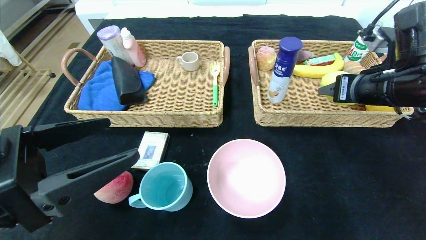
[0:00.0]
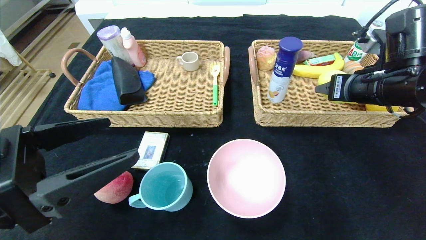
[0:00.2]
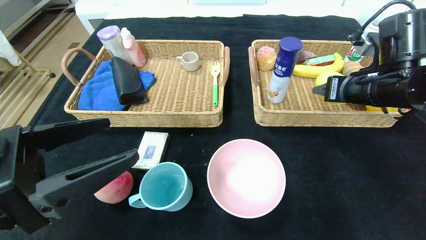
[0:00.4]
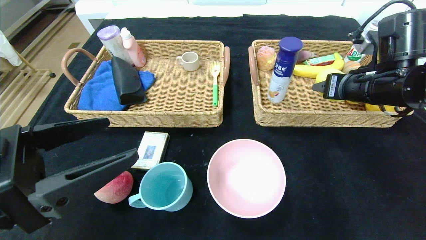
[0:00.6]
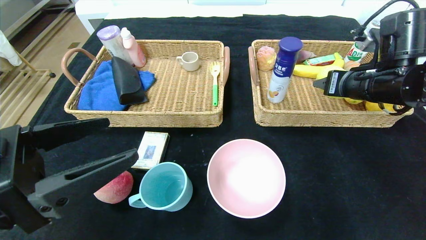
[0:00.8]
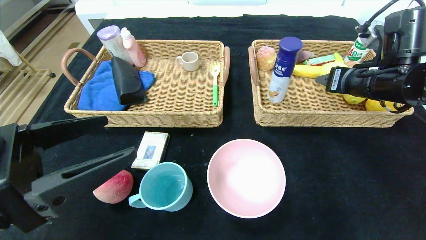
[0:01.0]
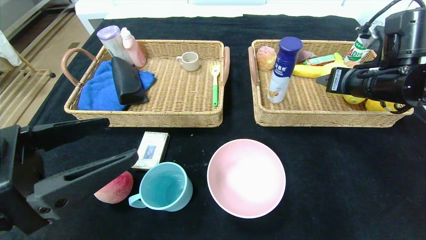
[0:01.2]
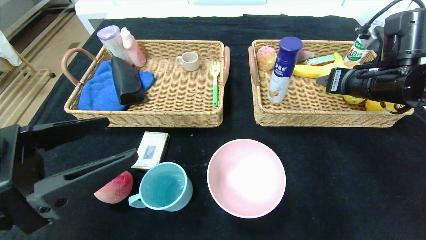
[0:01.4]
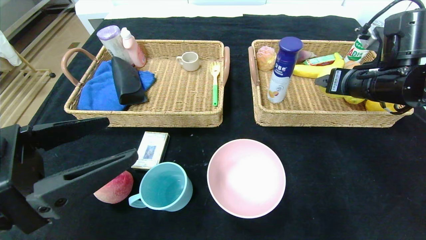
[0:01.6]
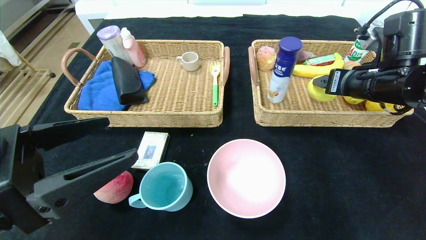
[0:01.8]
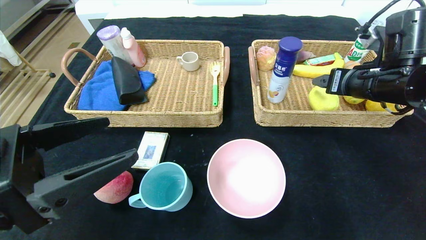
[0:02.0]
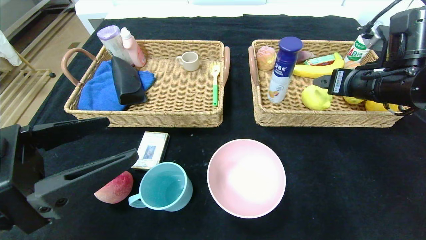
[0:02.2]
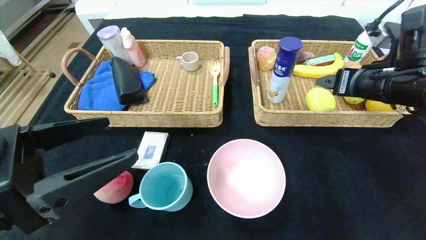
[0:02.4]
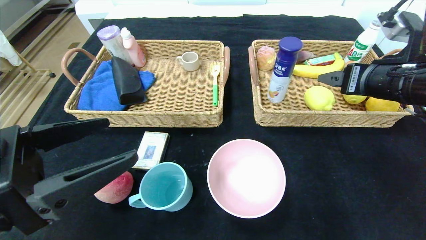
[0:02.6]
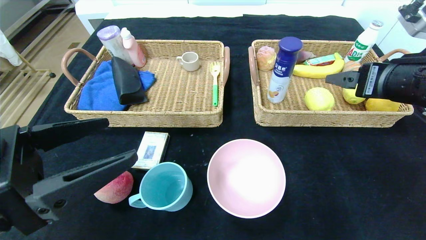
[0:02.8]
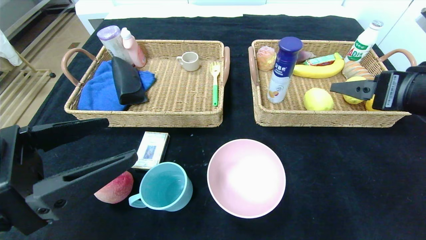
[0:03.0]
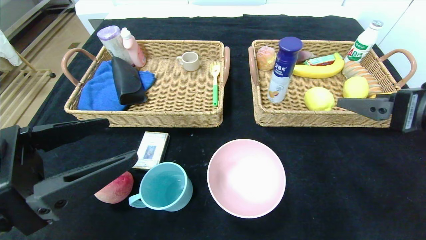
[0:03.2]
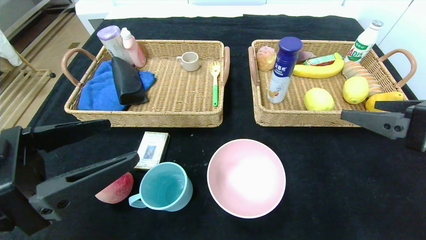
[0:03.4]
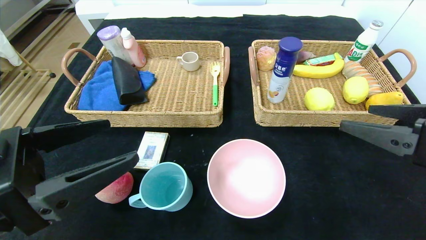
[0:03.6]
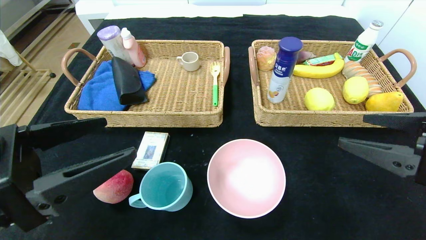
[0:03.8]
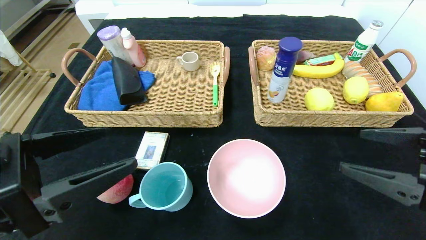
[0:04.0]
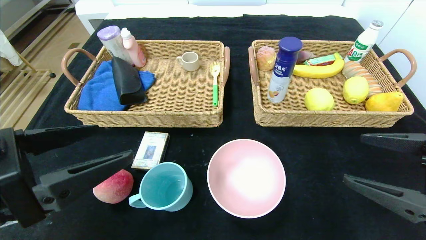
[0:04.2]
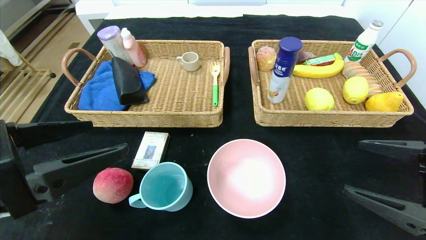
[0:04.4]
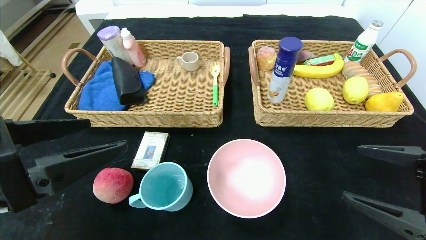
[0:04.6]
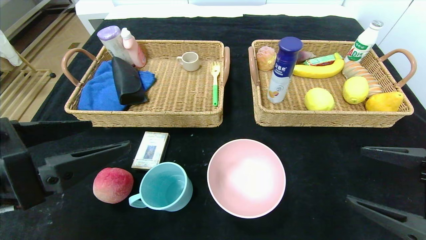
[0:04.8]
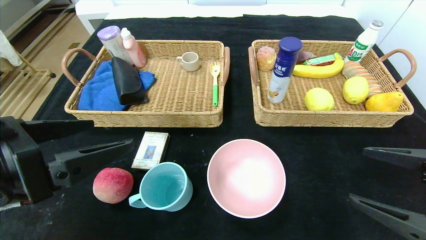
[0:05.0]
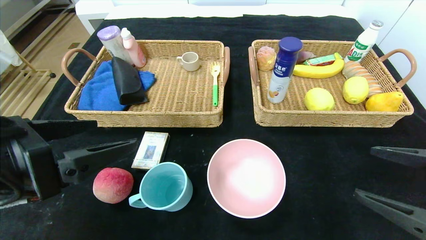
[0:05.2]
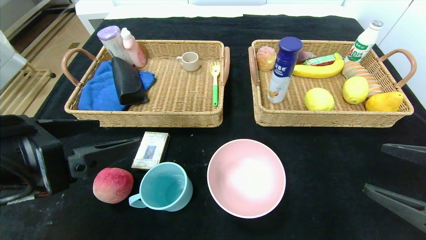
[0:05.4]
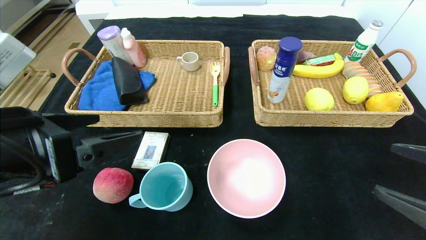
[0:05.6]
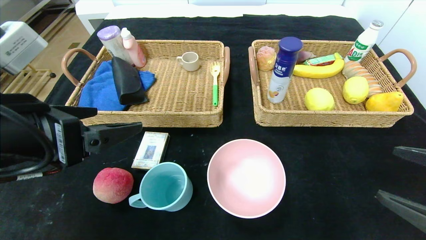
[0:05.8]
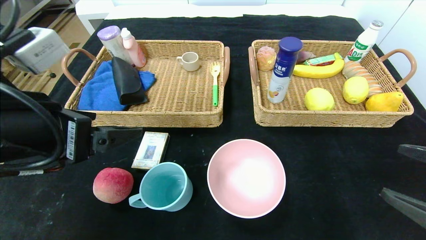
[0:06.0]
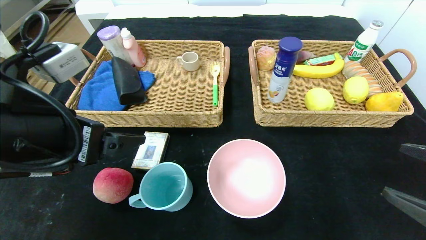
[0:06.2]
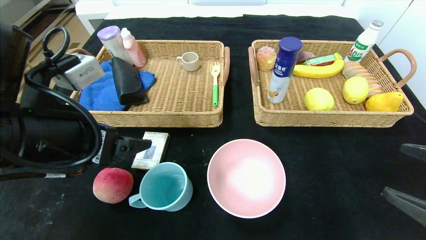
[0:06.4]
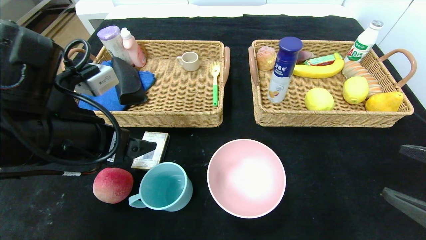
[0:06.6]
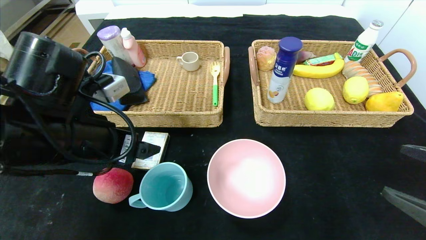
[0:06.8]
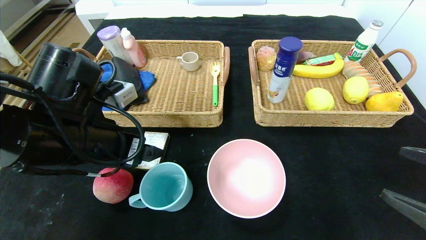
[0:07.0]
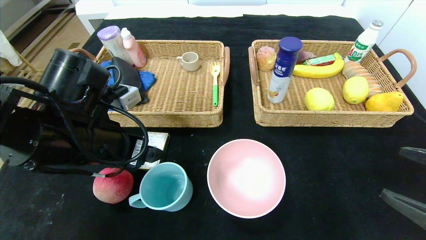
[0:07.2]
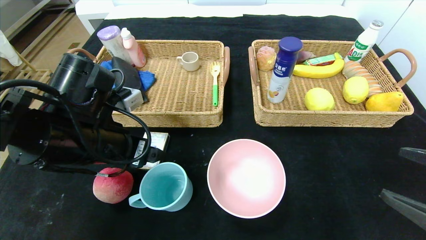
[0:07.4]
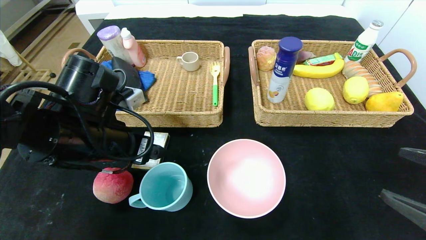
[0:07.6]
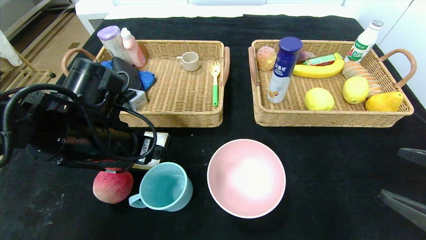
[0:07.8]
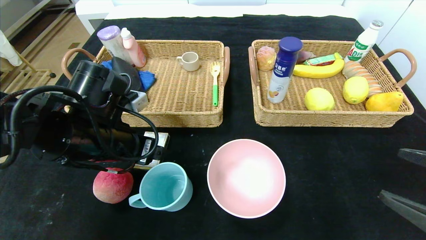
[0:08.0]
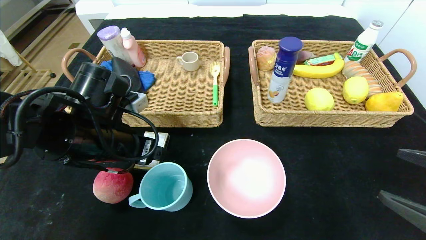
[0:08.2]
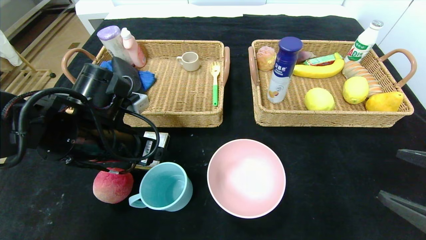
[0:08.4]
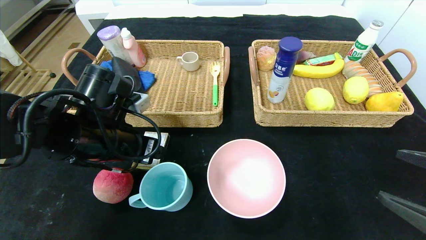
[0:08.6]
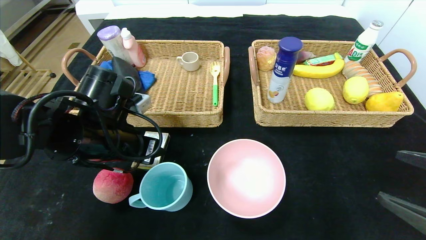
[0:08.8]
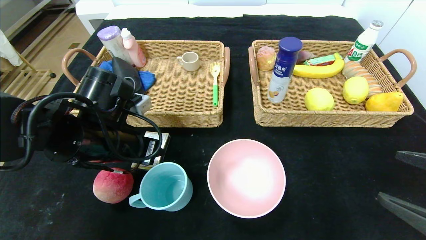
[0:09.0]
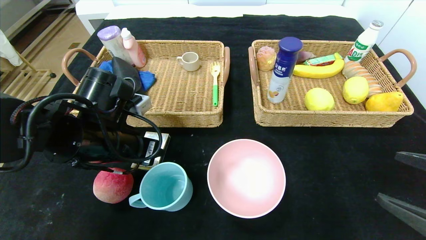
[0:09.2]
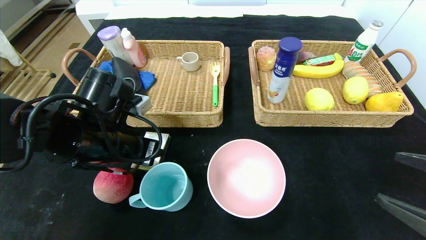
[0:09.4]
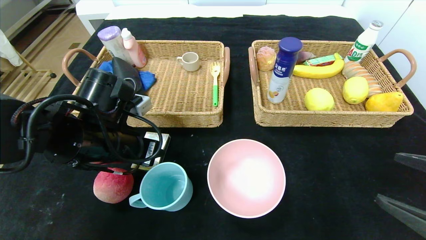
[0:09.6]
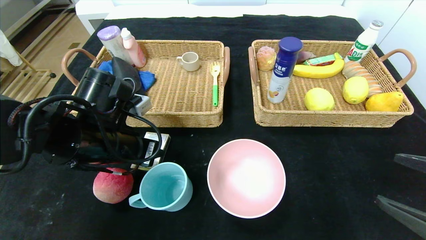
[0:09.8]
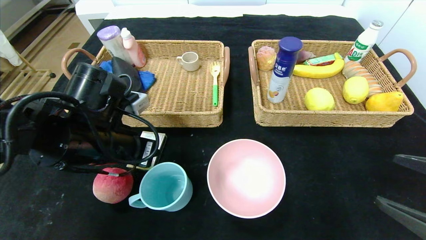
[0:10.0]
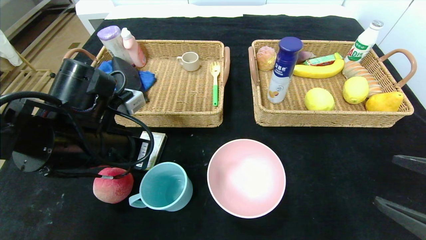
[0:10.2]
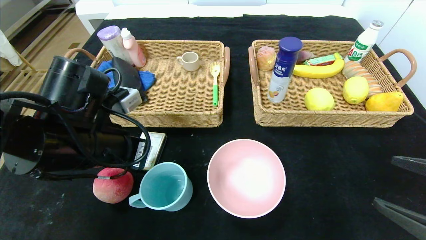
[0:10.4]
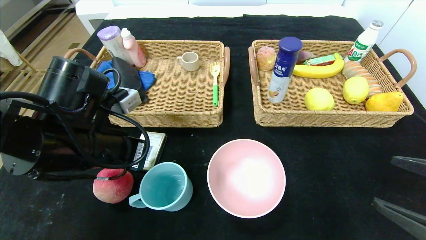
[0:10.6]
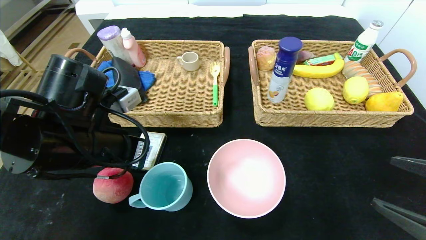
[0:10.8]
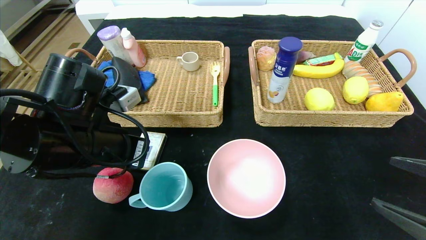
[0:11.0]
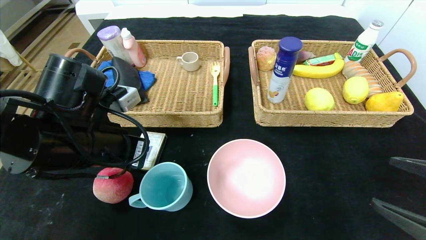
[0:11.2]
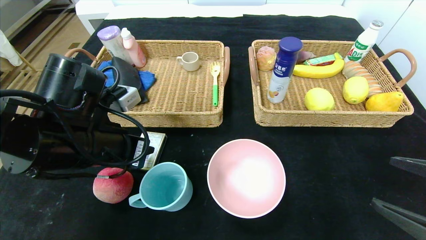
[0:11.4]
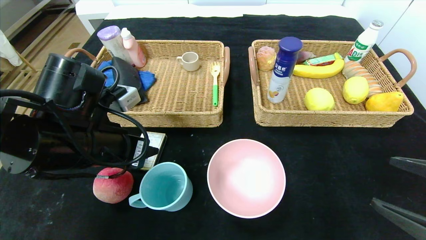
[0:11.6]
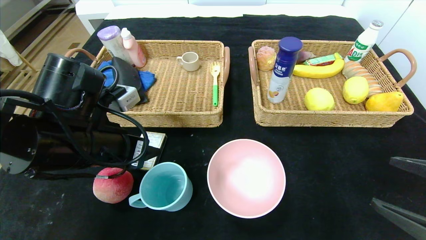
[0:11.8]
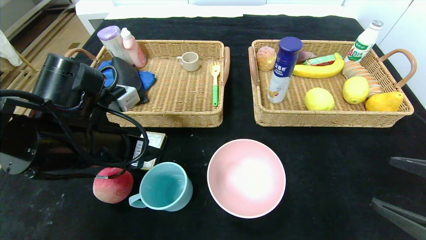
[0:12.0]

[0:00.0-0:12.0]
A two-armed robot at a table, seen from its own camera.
Step, 0:00.0 to 0:02.2: Grasp the lemon and put it in the right basket.
0:00.0 to 0:01.6: There are only small adjustments of the grippers.
0:01.6 to 0:03.0: The right gripper travels backward by about 10 cm.
0:03.0 to 0:04.4: The right gripper heads downward and backward, covering approximately 10 cm.
0:04.4 to 0:06.0: The left gripper is displaced forward by approximately 5 cm.
0:06.0 to 0:07.6: The left gripper shifts about 10 cm forward and downward.
0:07.6 to 0:09.0: The left gripper closes up.
0:09.0 to 0:10.4: The left gripper closes up.
0:10.4 to 0:12.0: The left gripper opens up.

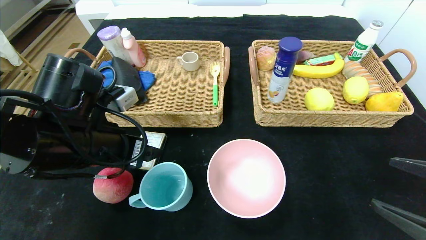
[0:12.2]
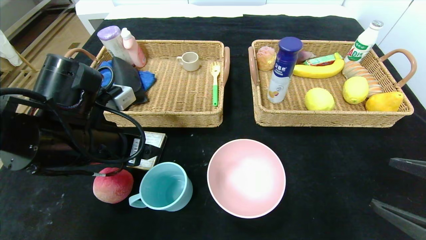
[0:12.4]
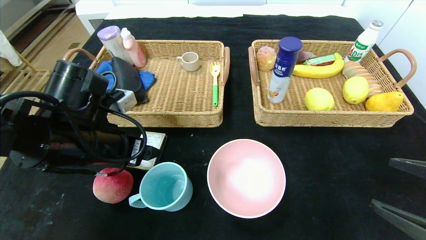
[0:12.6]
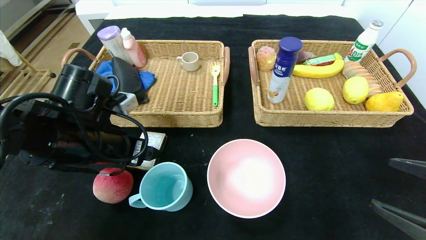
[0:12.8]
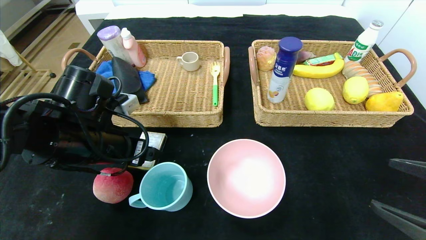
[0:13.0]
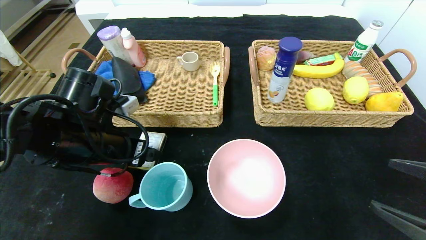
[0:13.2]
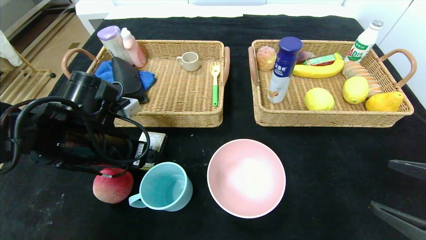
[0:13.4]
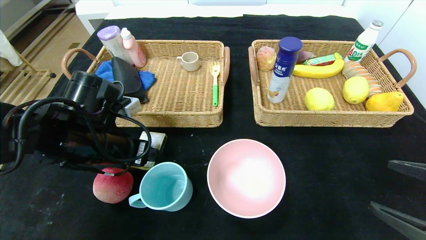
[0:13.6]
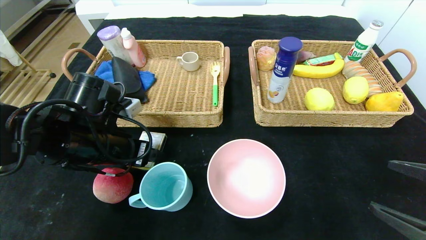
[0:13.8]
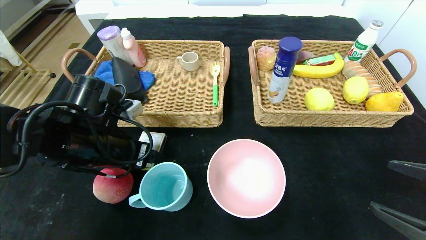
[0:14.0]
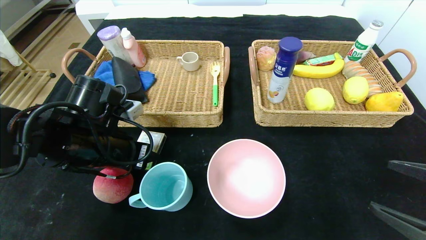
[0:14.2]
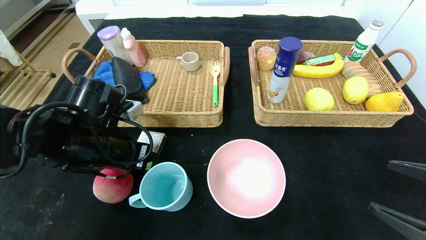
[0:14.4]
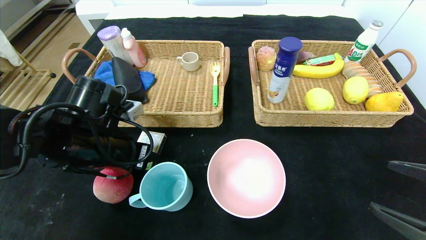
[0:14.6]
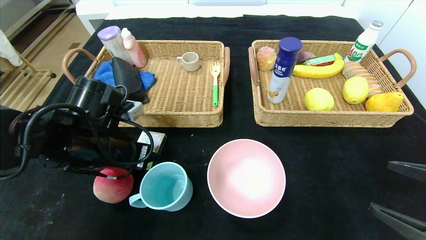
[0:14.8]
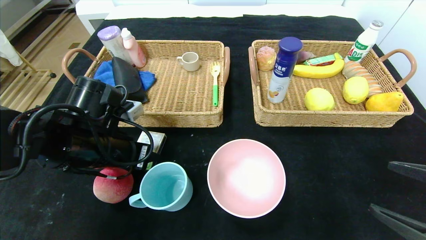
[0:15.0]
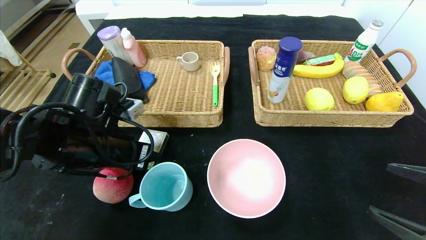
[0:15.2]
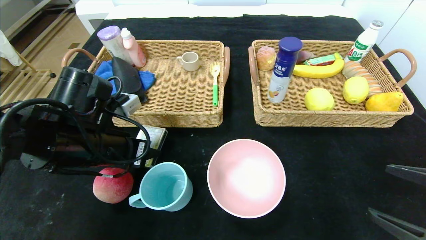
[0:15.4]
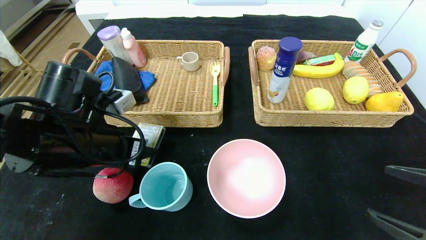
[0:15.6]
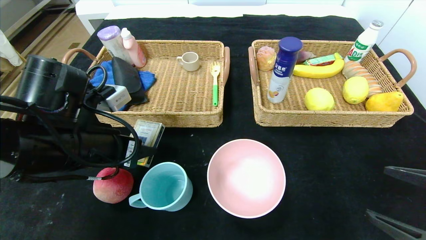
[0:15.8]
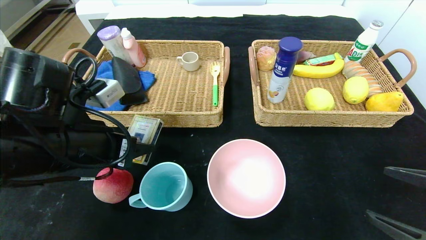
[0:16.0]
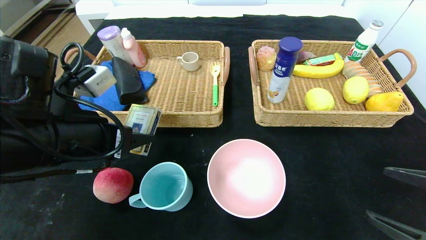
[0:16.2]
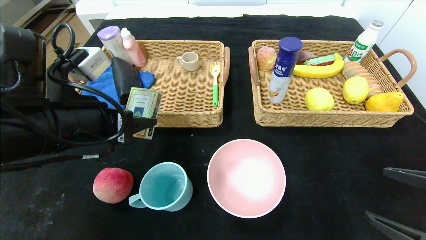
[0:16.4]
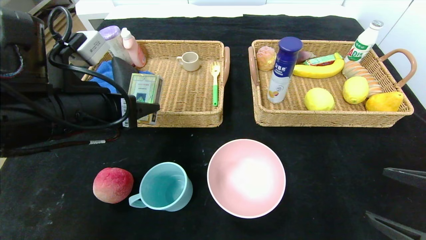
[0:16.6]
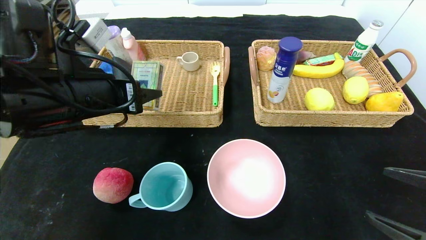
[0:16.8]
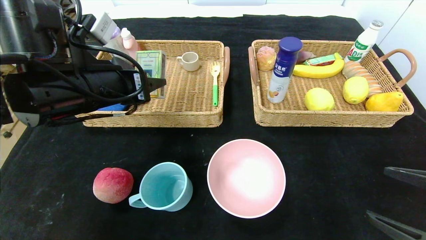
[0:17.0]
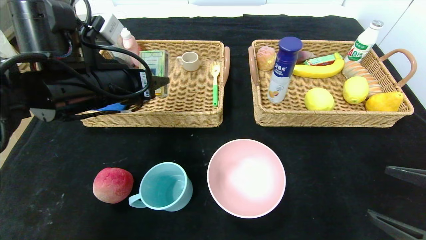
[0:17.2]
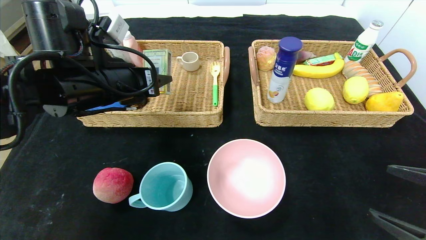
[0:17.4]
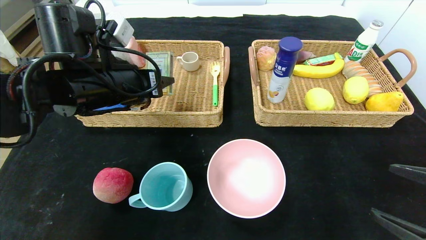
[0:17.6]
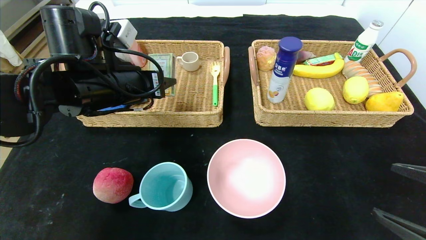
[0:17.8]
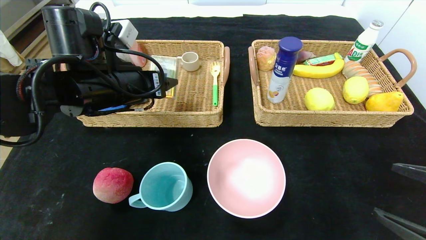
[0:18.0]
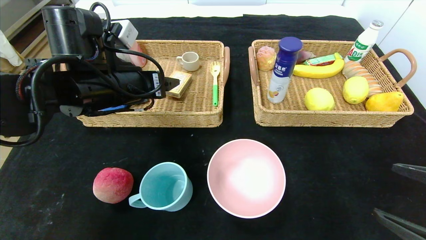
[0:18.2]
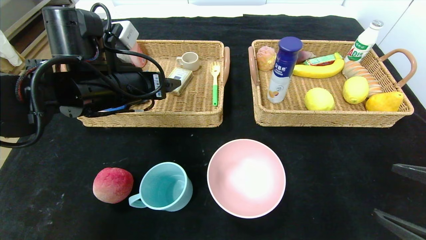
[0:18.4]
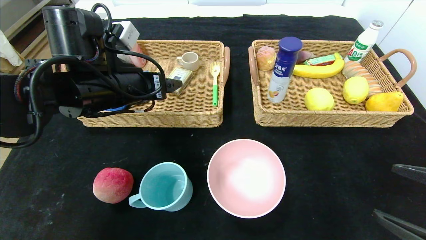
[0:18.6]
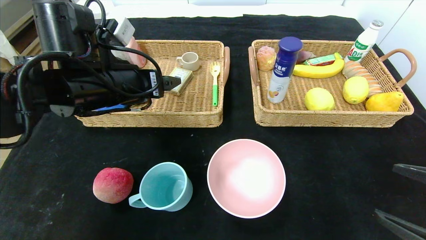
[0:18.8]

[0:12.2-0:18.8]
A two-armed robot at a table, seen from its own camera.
0:12.2 to 0:13.8: The grippers stay close to where they were, moving slightly.
0:13.8 to 0:15.4: The left gripper closes its fingers.
0:15.4 to 0:17.2: The left gripper is displaced upward by approximately 5 cm.
0:17.2 to 0:18.8: The left gripper opens its fingers.
